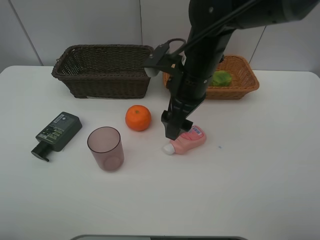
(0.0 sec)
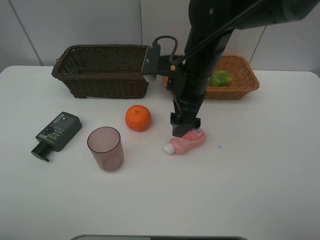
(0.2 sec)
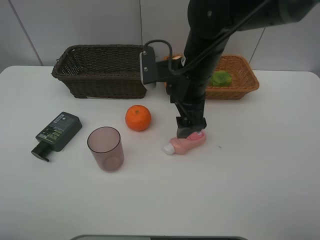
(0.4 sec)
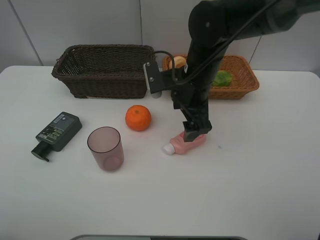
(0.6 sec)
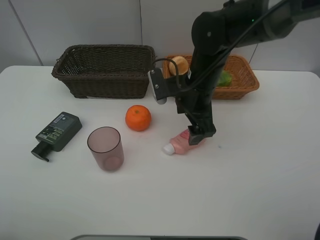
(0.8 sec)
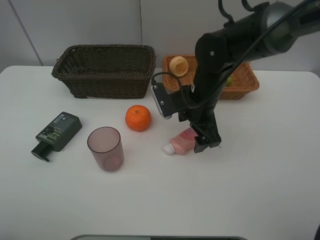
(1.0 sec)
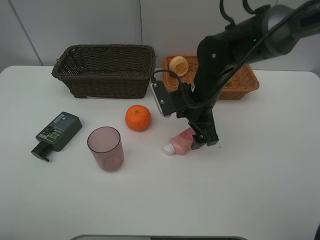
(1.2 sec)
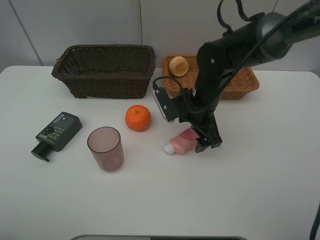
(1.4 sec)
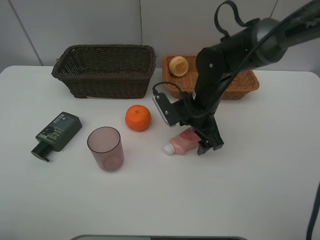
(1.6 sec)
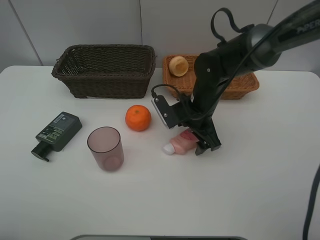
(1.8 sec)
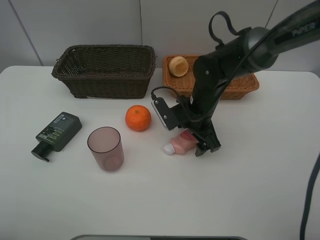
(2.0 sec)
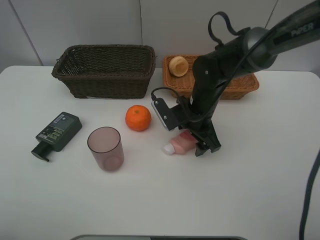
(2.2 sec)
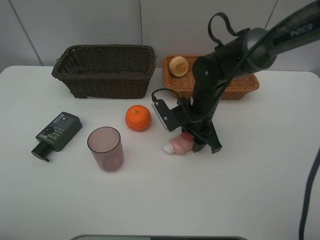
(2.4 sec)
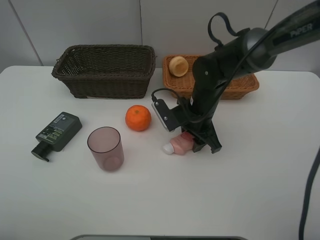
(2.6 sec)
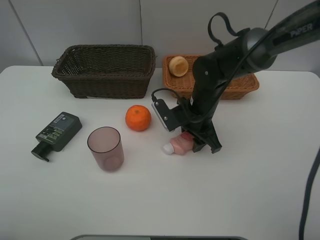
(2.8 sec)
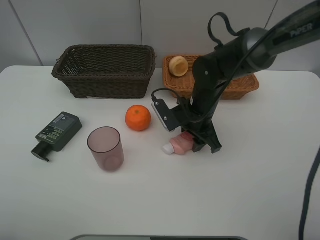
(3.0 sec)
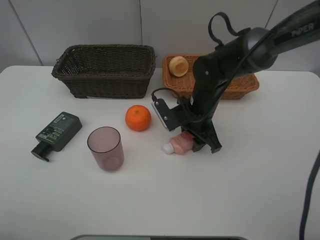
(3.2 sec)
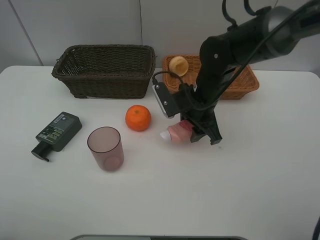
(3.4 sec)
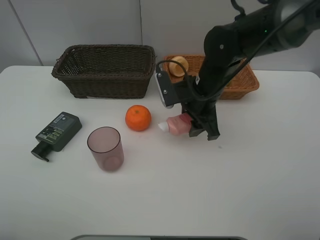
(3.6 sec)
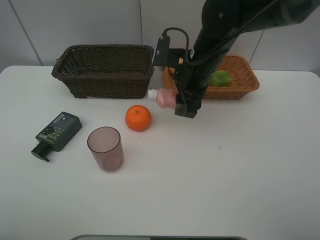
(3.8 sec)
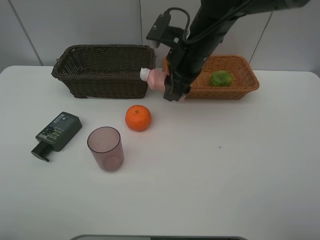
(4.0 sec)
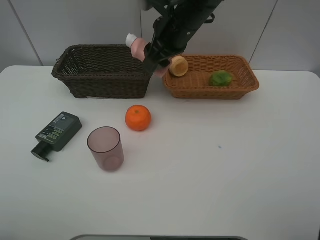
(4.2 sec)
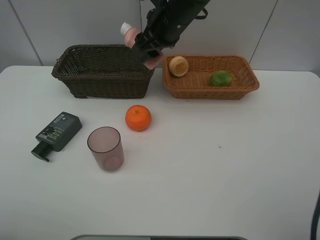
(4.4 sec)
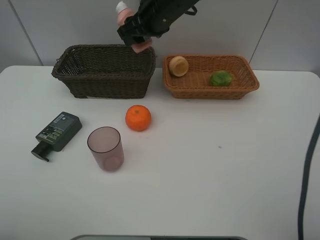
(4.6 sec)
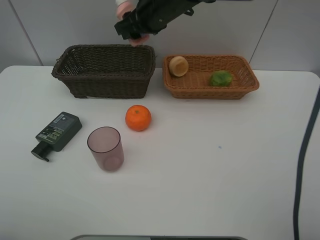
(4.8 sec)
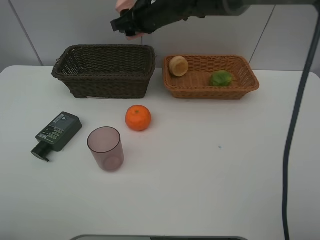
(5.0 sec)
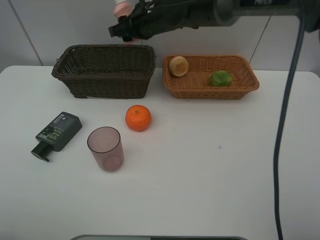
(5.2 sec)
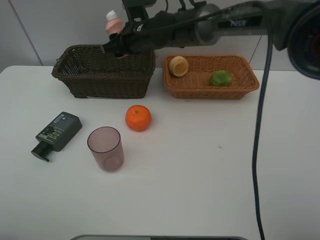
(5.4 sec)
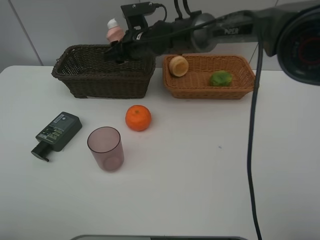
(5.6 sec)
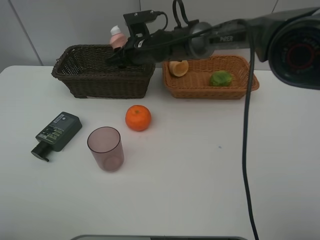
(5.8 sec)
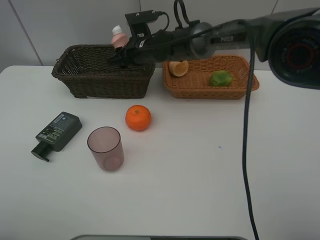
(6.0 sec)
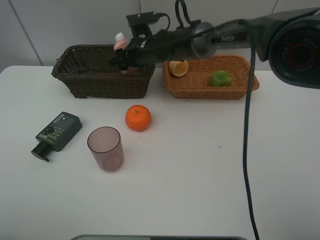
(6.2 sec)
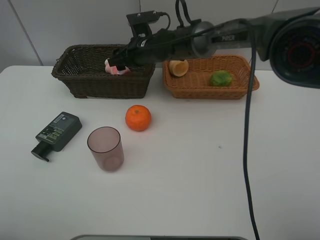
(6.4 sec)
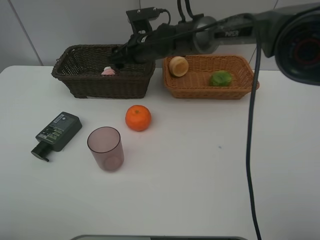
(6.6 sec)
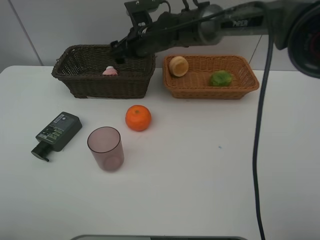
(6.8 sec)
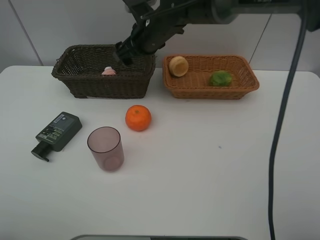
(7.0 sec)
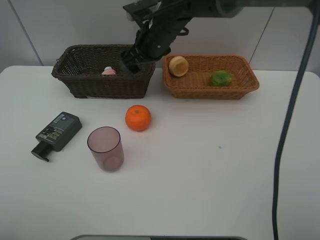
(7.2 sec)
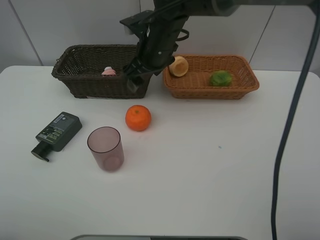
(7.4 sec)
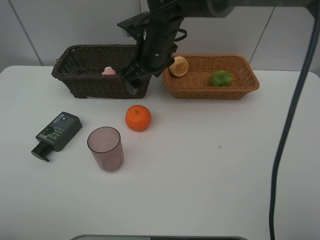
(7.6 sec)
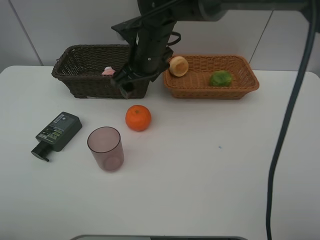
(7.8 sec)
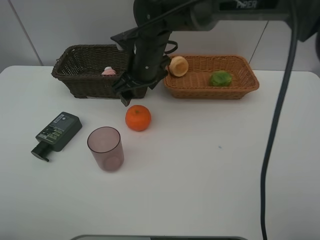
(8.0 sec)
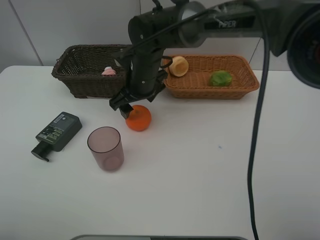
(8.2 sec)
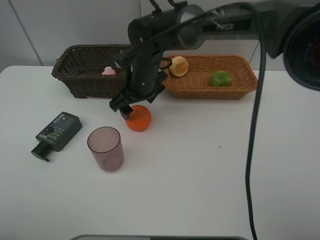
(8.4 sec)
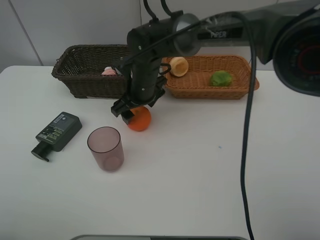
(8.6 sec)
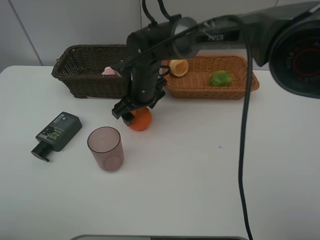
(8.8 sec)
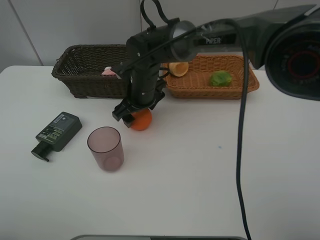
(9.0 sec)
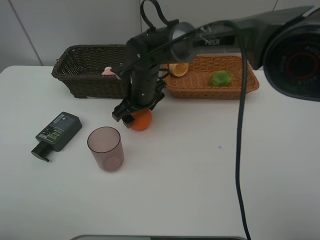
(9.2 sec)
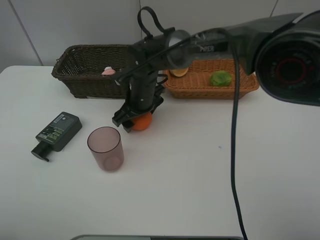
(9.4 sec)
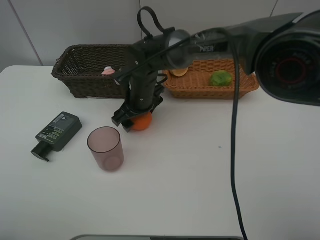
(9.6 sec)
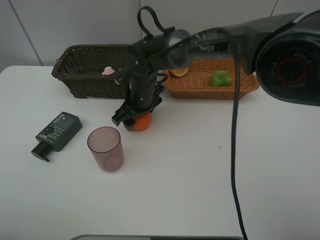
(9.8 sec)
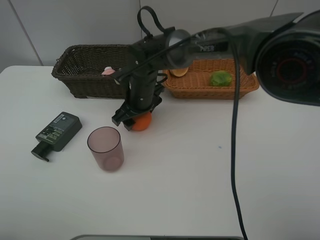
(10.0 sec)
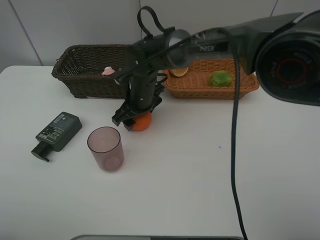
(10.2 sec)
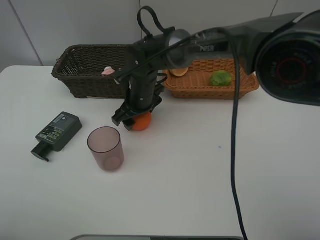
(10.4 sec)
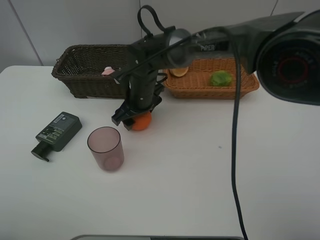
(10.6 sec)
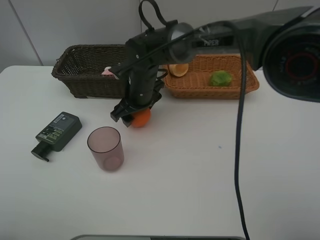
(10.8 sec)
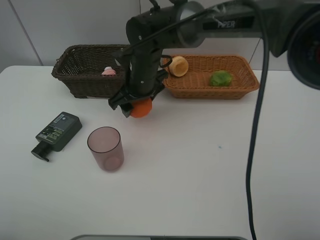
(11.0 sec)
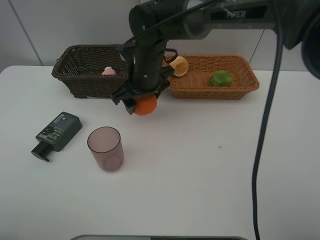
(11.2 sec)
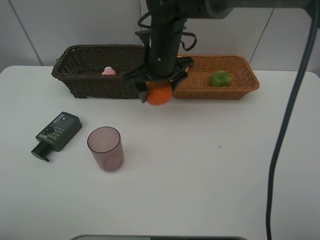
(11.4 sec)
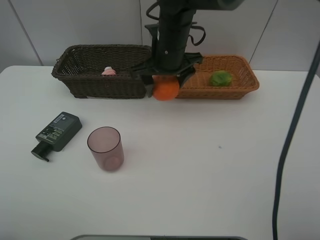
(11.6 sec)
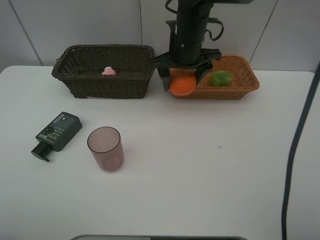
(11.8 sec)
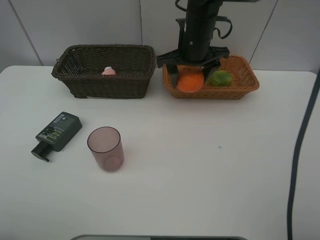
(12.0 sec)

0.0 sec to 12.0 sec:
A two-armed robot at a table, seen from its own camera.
Task of the whole recording: place multiple objects separately in different baskets.
0.0 sec to 1.6 sec: The right gripper moves downward, roughly 10 cm.
1.6 sec to 3.0 sec: The right gripper closes its fingers.
3.0 sec to 4.4 sec: The right gripper shifts roughly 20 cm upward, forward and to the left.
4.4 sec to 6.0 sec: The right gripper is displaced downward, forward and to the left by approximately 15 cm.
6.0 sec to 7.6 sec: The right gripper shifts about 10 cm backward and upward, and opens.
7.6 sec to 9.0 sec: The right gripper heads downward, covering approximately 10 cm.
9.0 sec to 10.4 sec: There are only small adjustments of the grippers.
10.4 sec to 12.0 sec: The right gripper heads to the right and upward, covering about 15 cm.

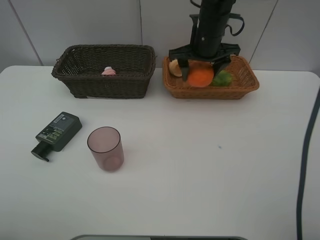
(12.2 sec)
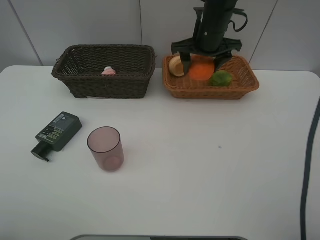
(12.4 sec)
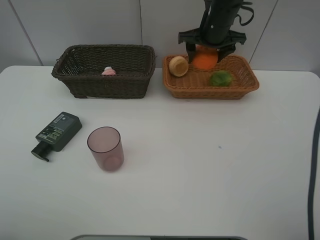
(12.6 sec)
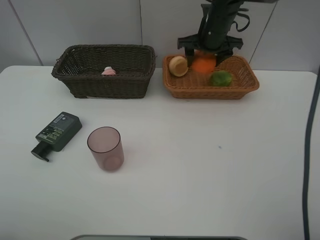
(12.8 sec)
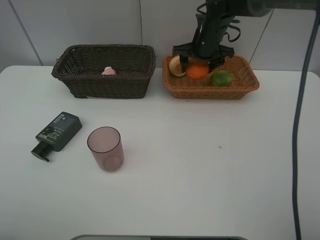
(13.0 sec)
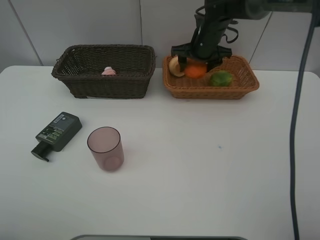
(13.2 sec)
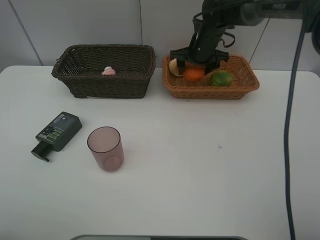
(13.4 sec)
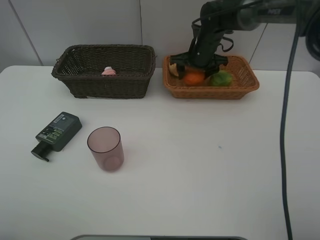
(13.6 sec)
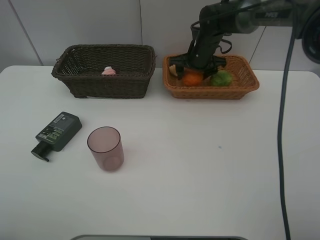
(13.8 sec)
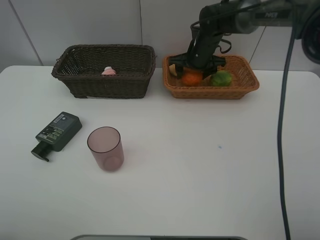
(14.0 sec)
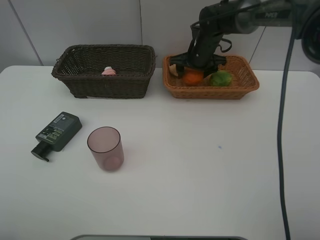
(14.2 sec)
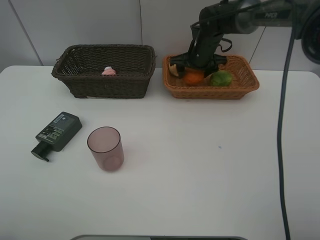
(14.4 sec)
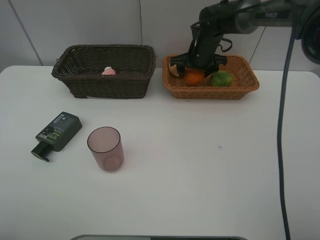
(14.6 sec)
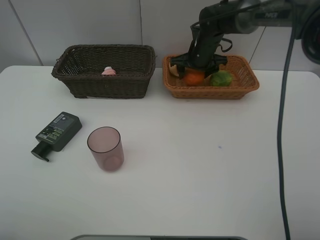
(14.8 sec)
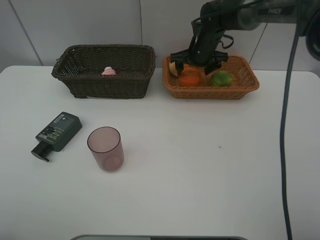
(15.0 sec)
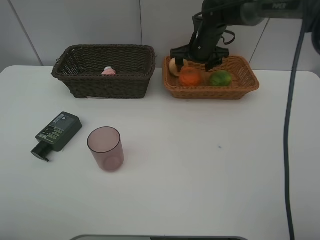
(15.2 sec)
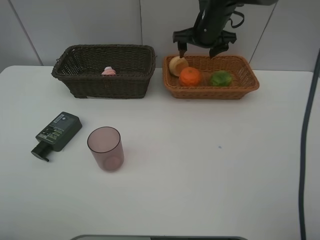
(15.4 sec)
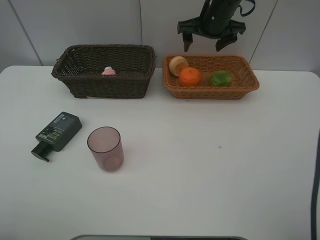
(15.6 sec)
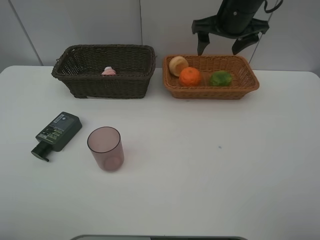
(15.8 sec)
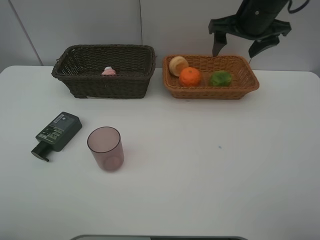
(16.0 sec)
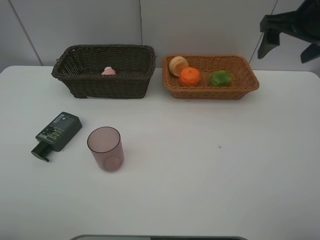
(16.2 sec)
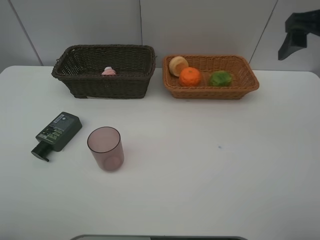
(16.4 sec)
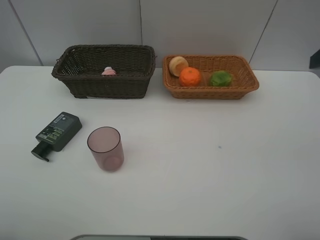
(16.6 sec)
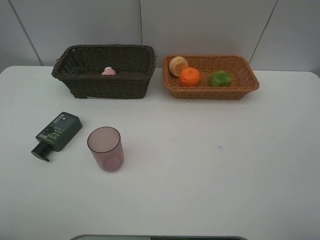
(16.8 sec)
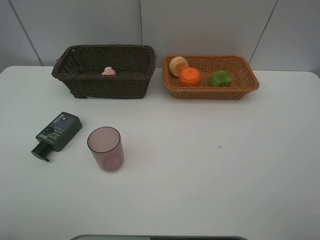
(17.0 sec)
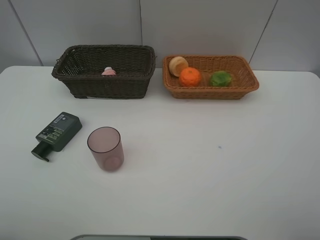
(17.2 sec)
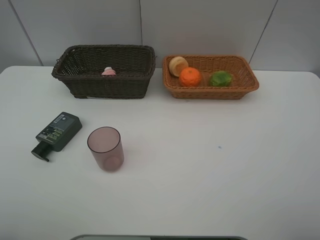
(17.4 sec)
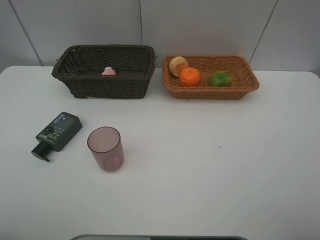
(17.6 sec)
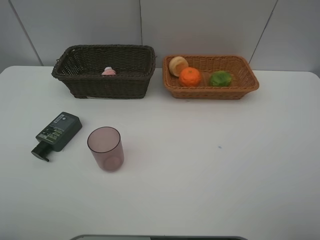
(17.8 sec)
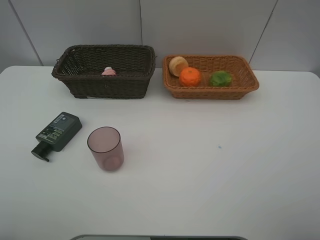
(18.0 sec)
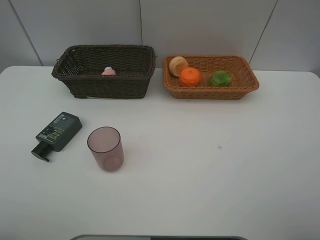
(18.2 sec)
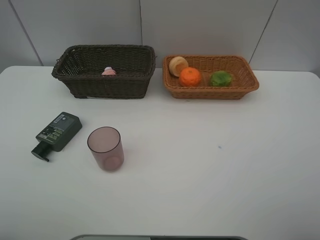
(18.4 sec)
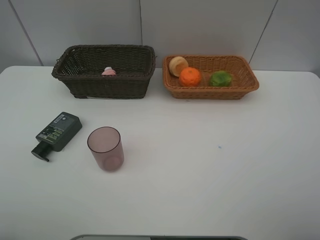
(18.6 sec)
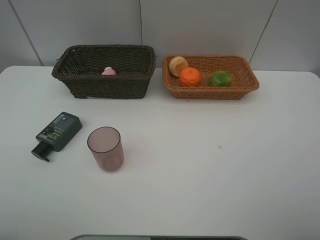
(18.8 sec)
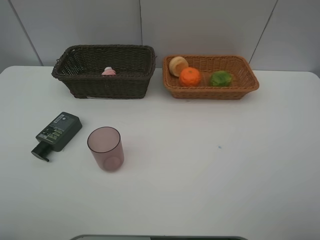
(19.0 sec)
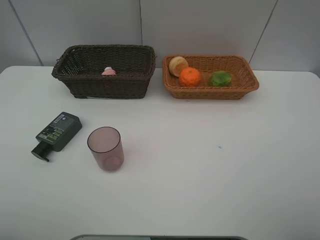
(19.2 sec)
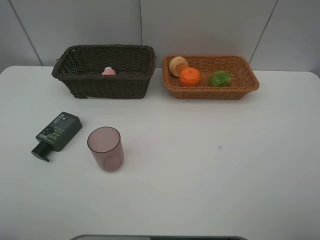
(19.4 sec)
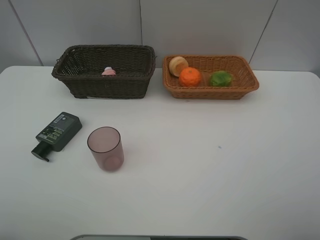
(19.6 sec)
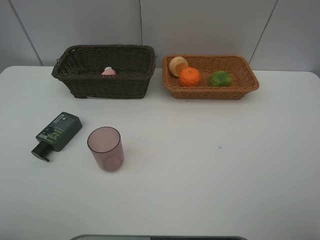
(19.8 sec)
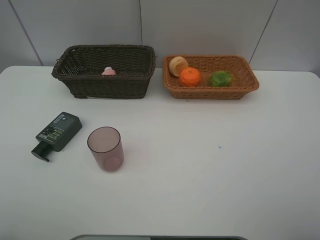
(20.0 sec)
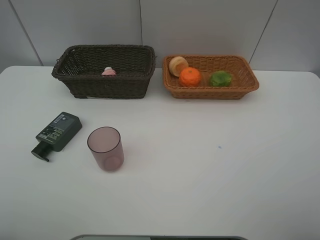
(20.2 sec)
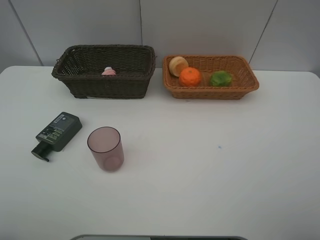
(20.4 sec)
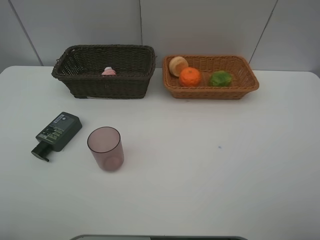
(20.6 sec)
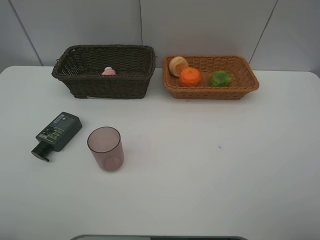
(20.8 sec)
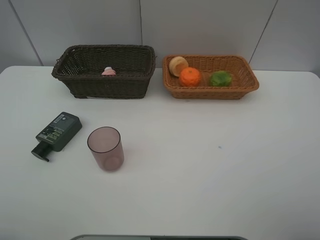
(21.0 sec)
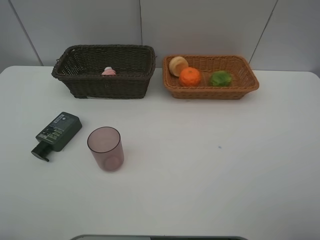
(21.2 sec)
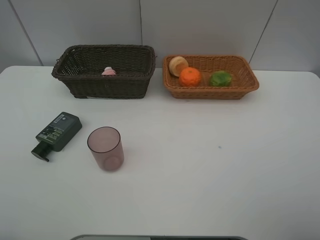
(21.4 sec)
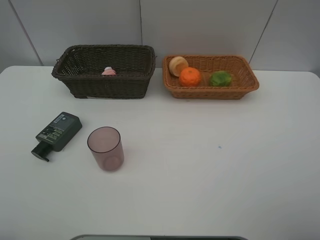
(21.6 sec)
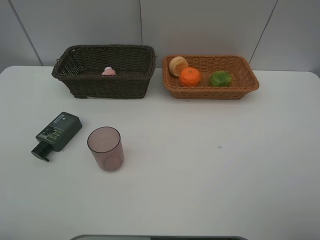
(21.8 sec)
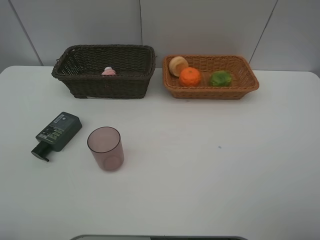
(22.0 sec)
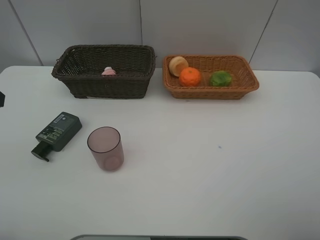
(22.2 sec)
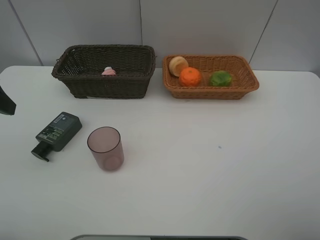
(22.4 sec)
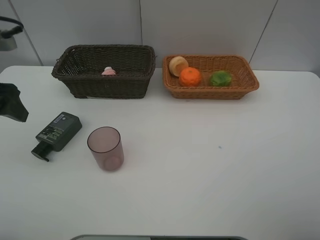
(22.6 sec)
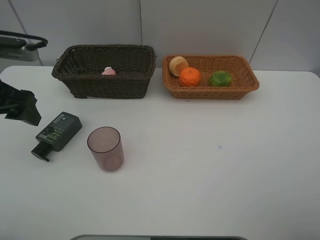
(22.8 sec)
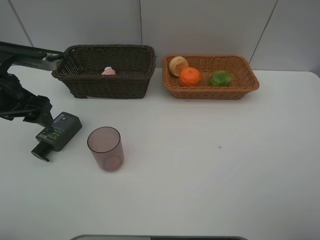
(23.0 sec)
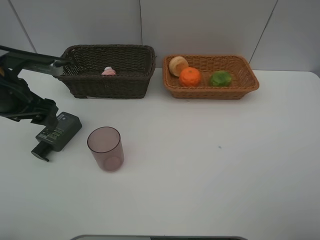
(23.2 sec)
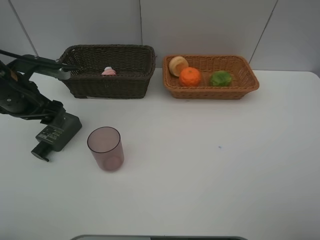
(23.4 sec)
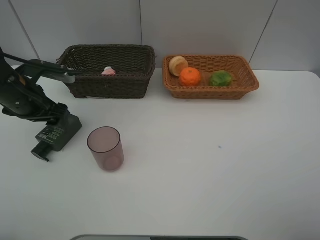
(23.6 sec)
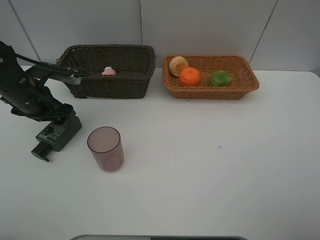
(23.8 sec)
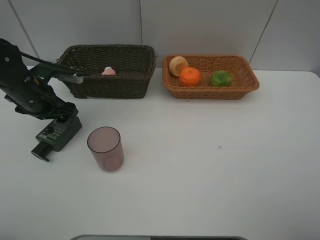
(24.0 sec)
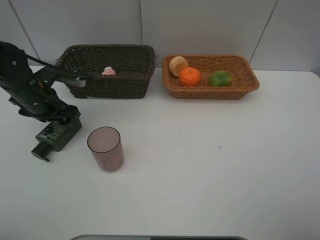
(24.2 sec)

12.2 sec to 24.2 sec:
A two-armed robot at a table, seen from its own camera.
Task of the whole recording: place multiple objects separately in different baskets.
12.2 sec to 13.8 sec: The right gripper travels downward and forward by about 10 cm.
13.8 sec to 15.2 sec: The right gripper opens.
15.2 sec to 16.6 sec: The right gripper shifts about 40 cm backward, to the right and upward.
18.2 sec to 19.8 sec: Neither gripper changes place.
21.2 sec to 22.6 sec: The left gripper moves forward and downward, about 15 cm.
22.6 sec to 24.2 sec: The left gripper moves downward and forward, about 15 cm.
